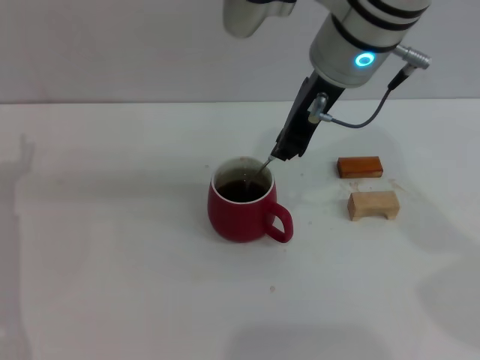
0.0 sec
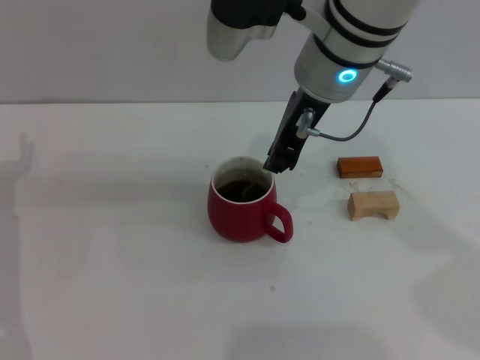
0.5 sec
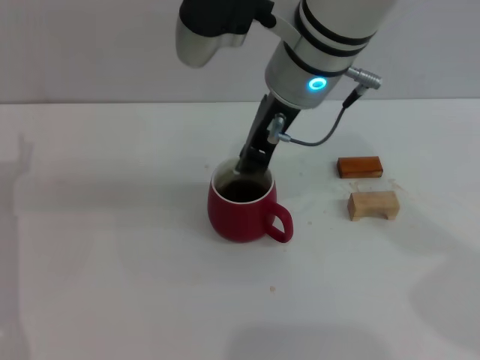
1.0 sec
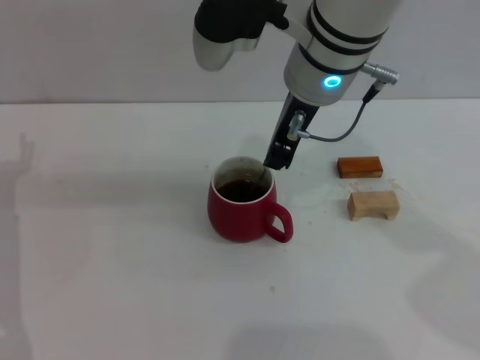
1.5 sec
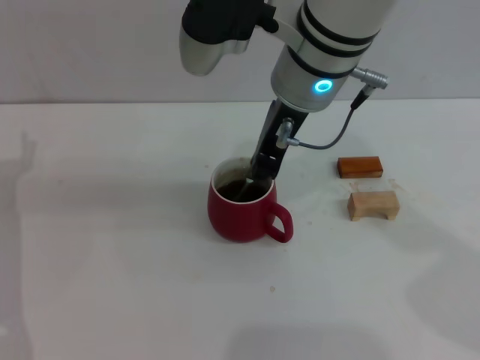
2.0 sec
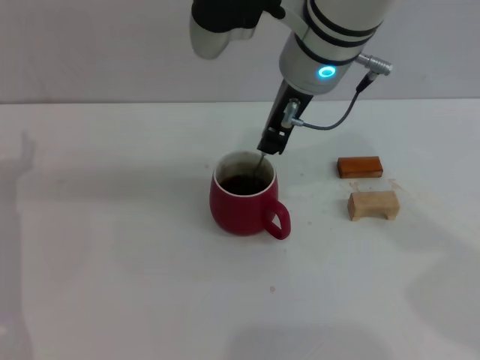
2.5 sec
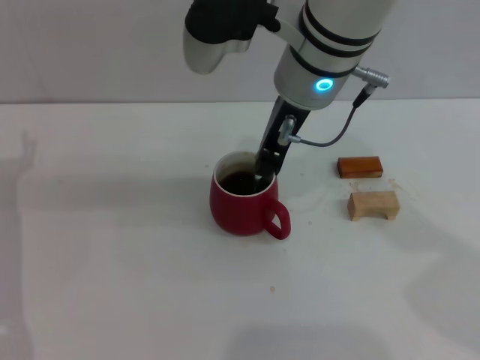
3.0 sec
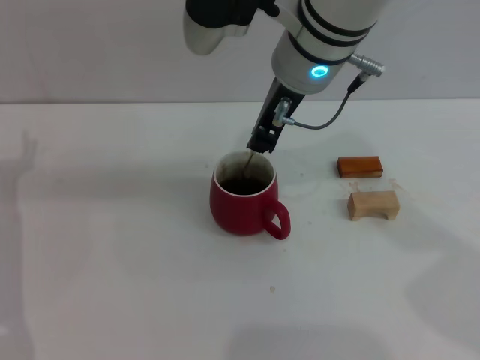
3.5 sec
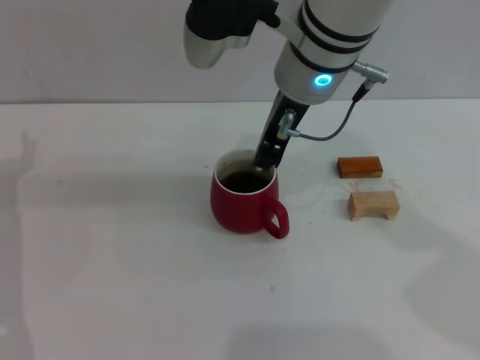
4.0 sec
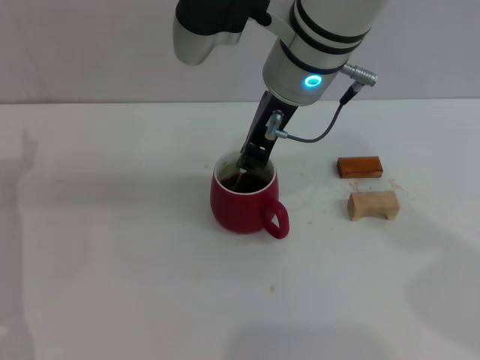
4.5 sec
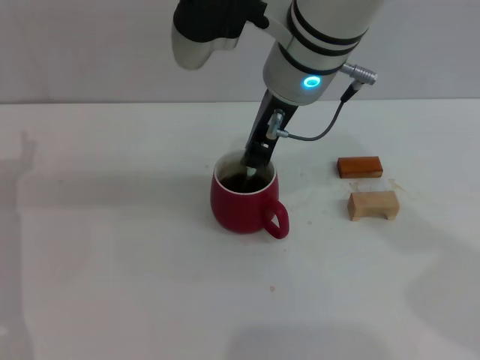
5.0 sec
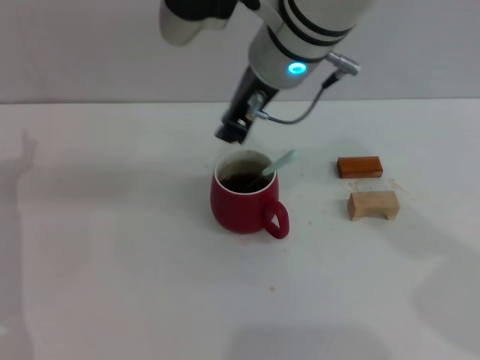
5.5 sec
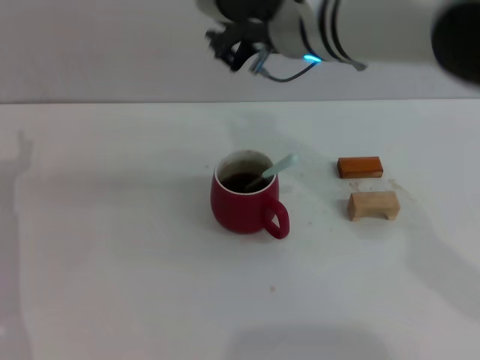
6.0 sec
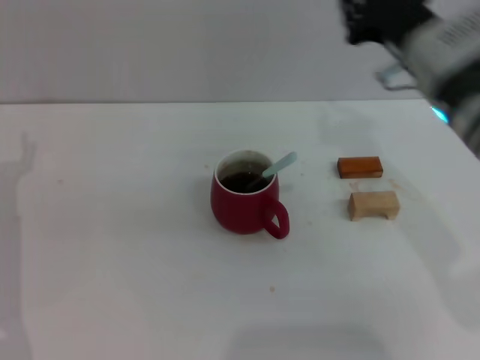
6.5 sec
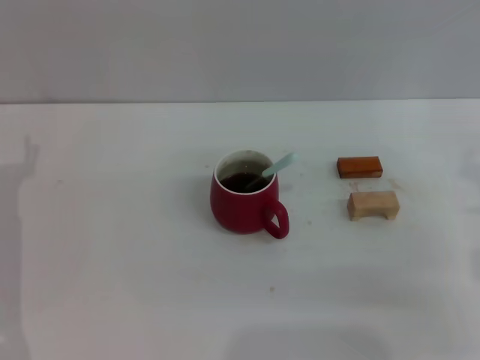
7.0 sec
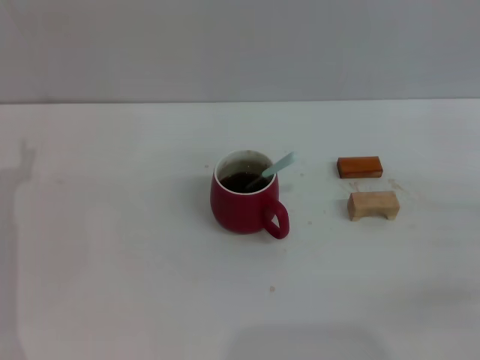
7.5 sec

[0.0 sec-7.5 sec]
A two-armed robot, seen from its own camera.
Task of the whole recording: Move the red cup to the center, lift the blue spoon, stir it three times in the cup, and put the spoon into the cup.
Step, 0.0 sec to 5.0 sec: Stir the coffee in the cup with the right gripper.
0.0 sec to 5.5 sec: The grippers make only small movements.
5.5 sec to 7.5 sec: The right gripper moves to the right, downward and backward, about 40 cm.
